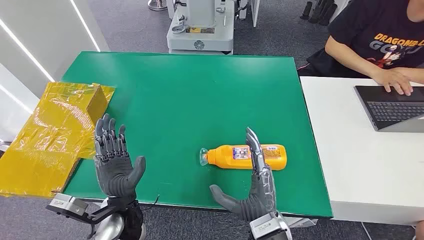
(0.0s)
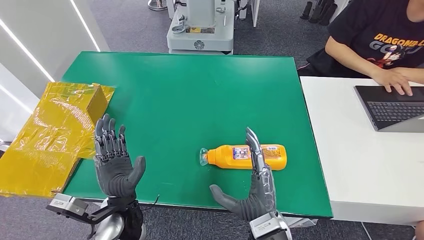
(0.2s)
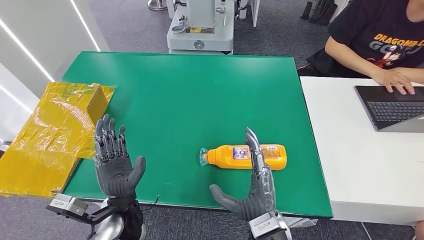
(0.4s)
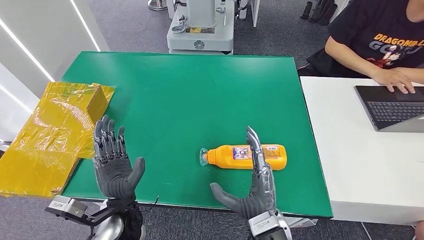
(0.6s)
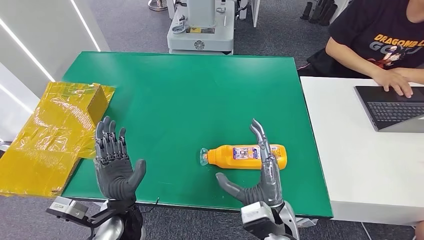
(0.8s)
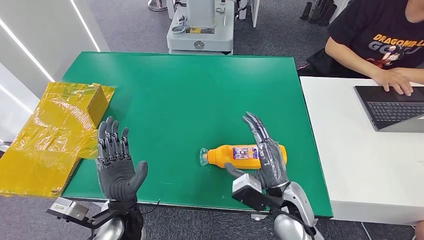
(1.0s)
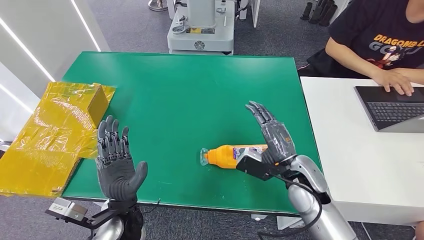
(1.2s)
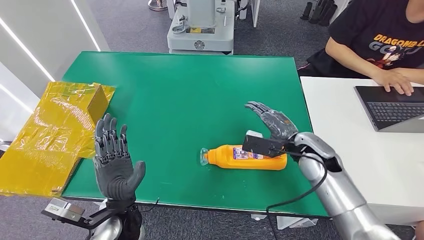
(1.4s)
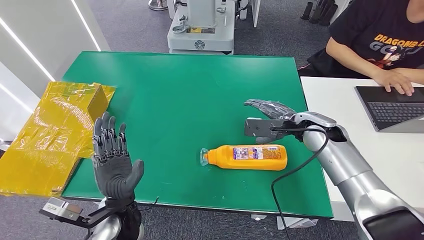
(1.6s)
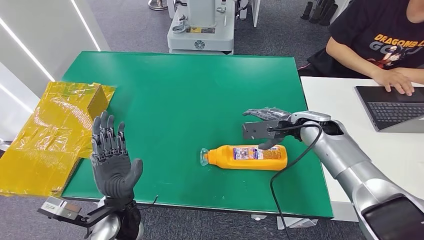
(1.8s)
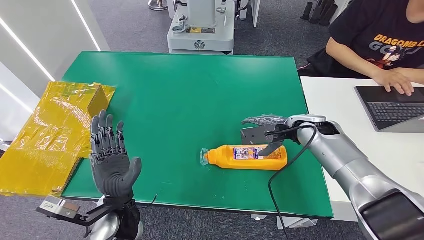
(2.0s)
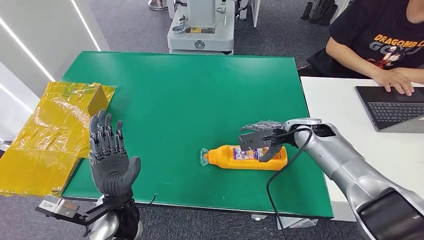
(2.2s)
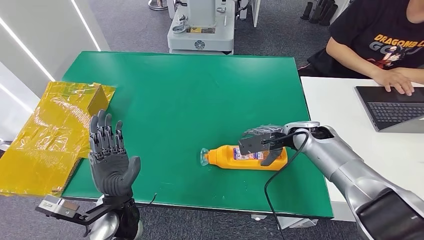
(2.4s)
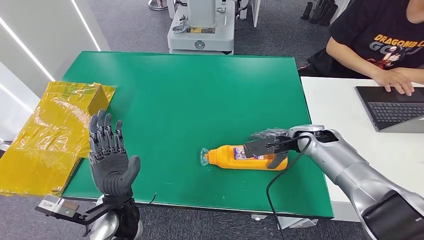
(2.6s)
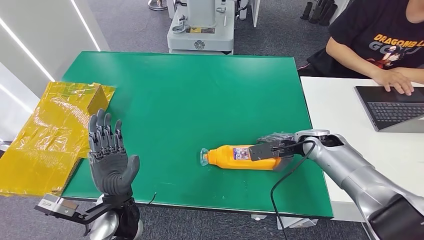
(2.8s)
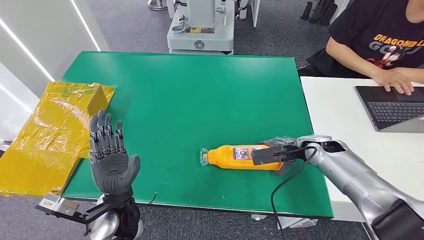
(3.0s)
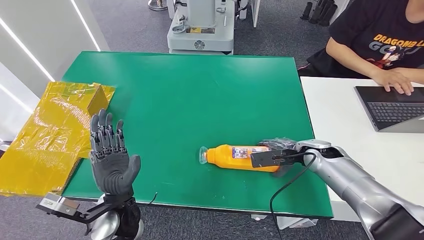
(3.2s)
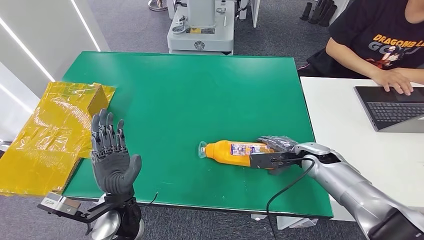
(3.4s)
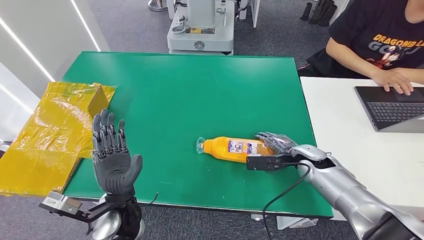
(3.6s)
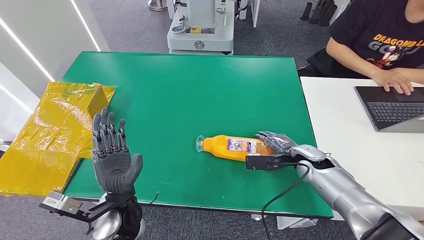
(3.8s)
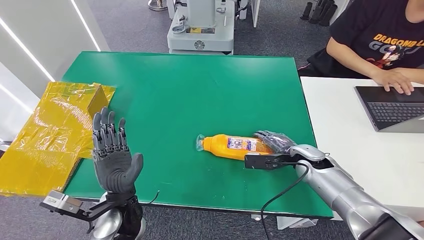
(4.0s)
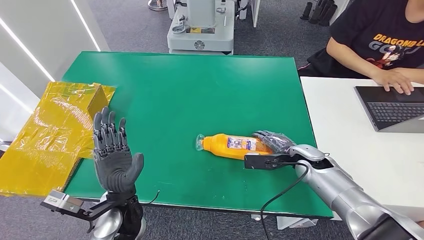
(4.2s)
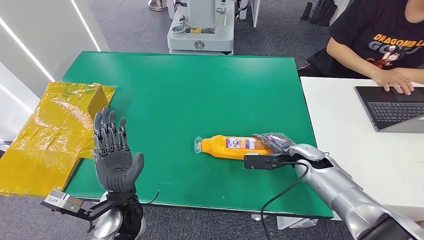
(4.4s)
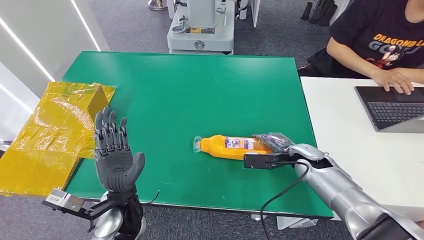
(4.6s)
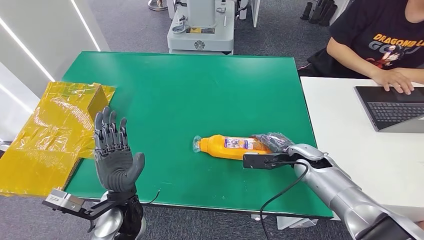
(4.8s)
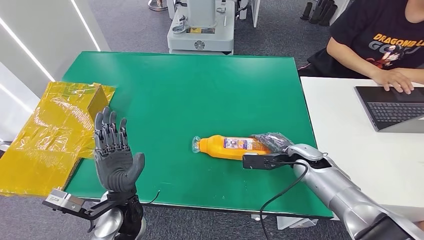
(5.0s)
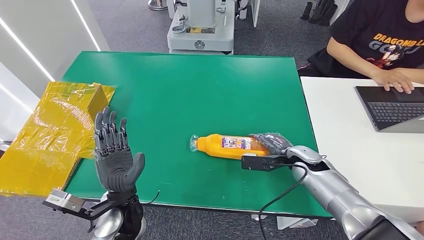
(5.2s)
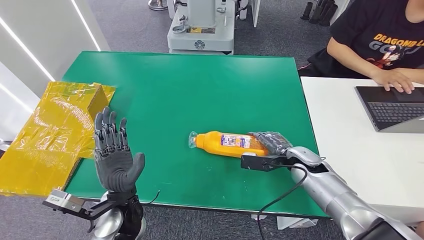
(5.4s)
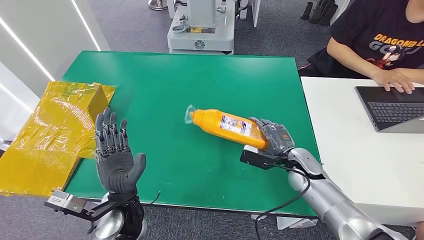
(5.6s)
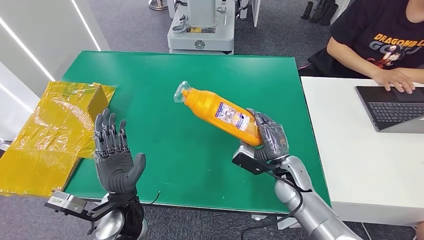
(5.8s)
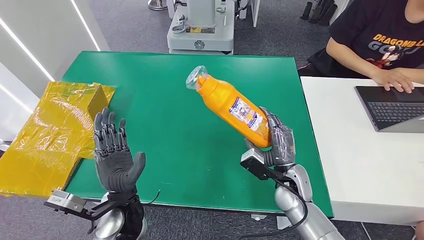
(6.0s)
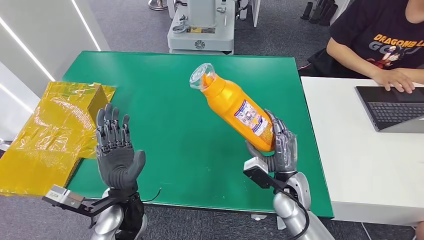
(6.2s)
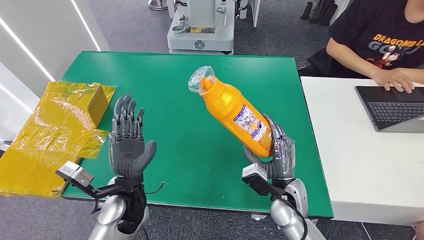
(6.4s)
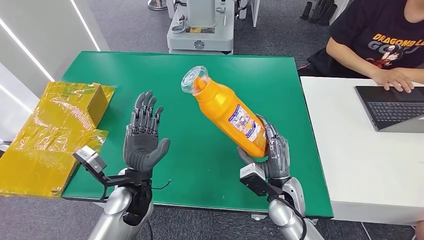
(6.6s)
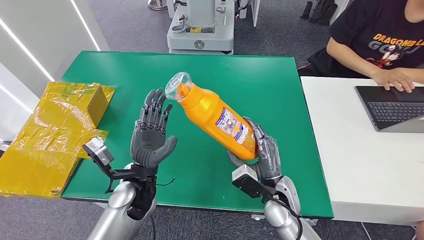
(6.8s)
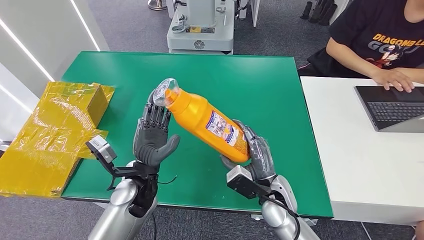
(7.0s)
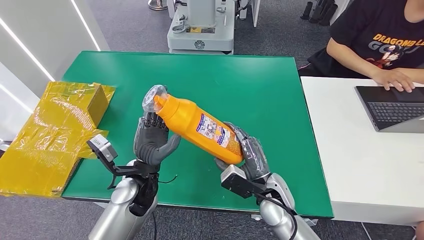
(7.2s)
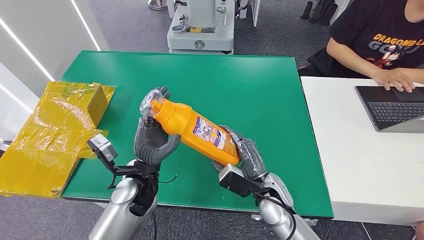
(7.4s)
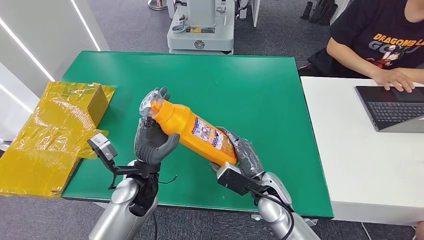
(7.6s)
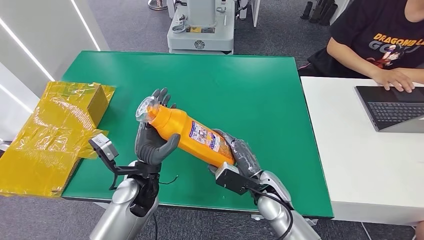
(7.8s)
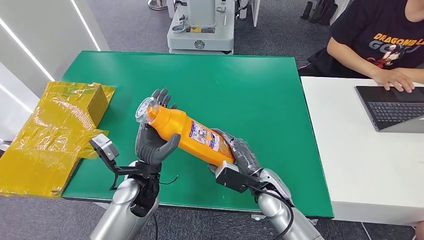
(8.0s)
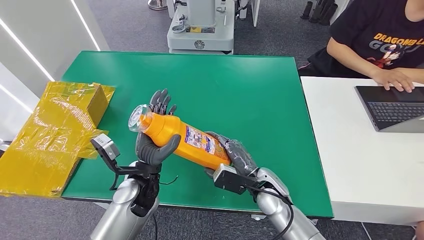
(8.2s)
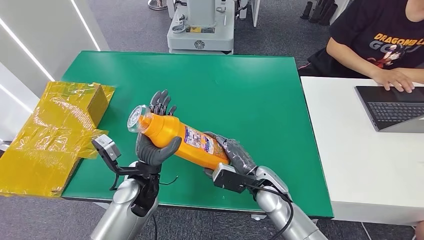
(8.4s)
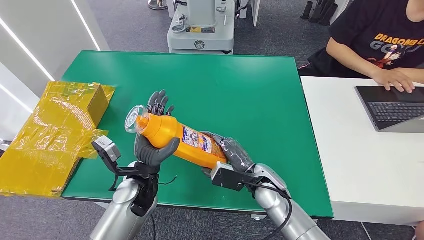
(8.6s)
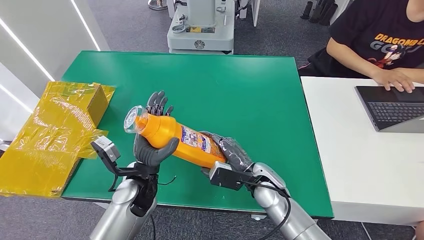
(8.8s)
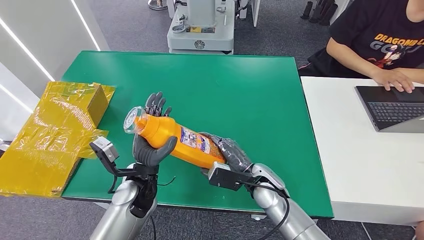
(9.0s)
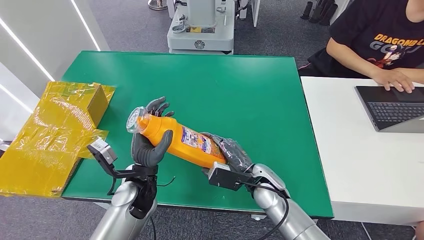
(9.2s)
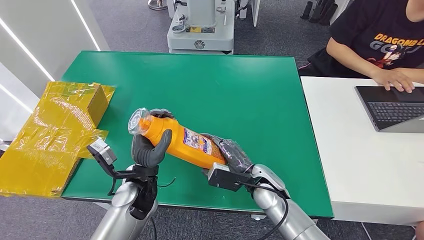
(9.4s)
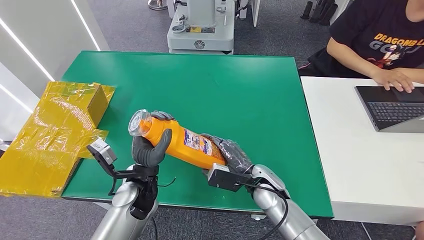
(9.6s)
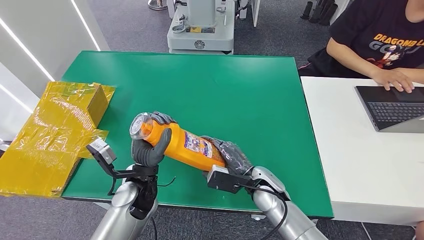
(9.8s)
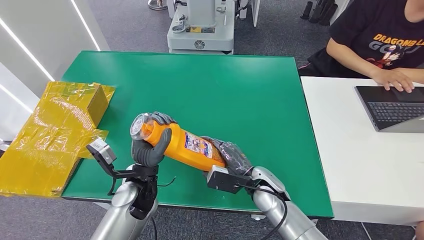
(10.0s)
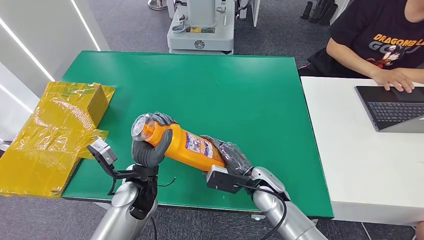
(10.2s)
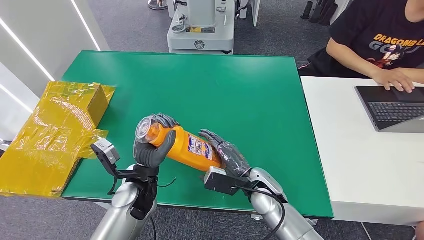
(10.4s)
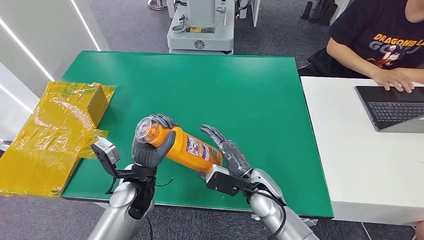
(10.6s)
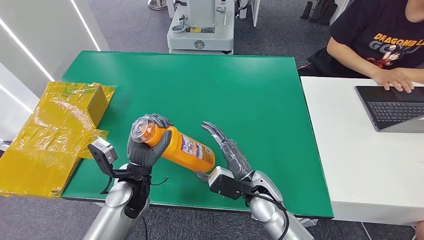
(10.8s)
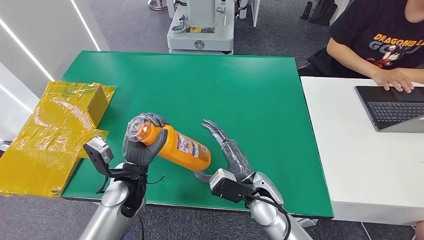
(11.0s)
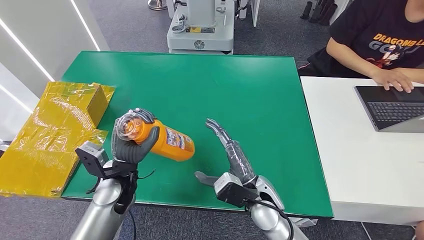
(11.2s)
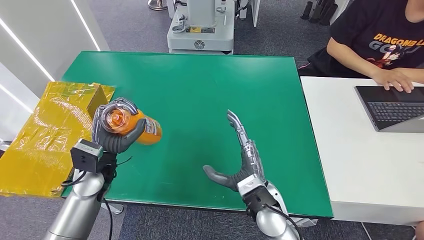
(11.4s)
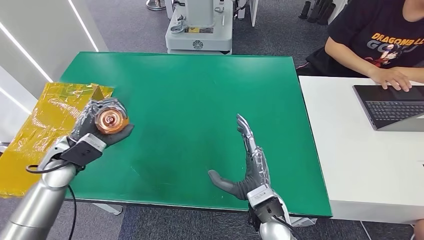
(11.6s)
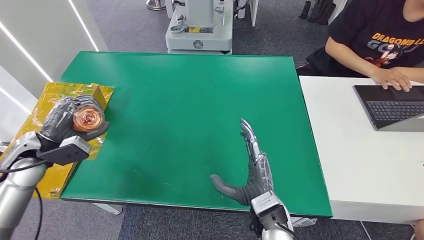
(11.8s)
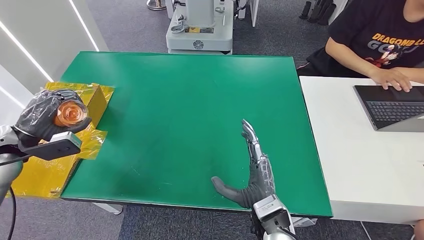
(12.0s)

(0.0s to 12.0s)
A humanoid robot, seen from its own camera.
Step, 0.0s - 6.6s: Pick up the bottle from the table.
1.6s - 3.0s: The right hand moves downward and to the right, about 10 cm.
3.0s - 4.4s: The right hand changes place by about 5 cm.
4.4s - 6.0s: The right hand shifts some 10 cm to the left and backward.
6.0s - 7.6s: The right hand goes approximately 5 cm to the left; the left hand is displaced forward by approximately 5 cm.
7.6s - 9.0s: There are only small adjustments of the hands.
9.0s - 10.4s: Neither hand changes place.
10.4s - 12.0s: The left hand shifts some 30 cm to the left. The right hand heads backward, covering approximately 10 cm.

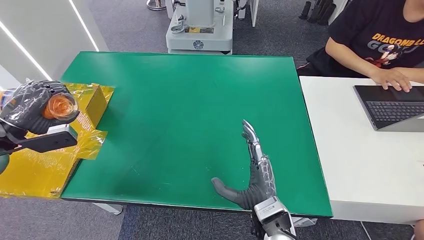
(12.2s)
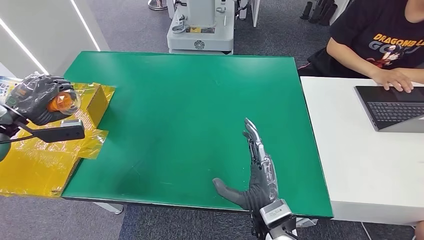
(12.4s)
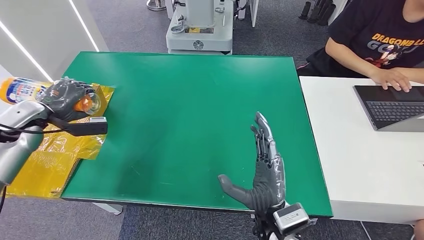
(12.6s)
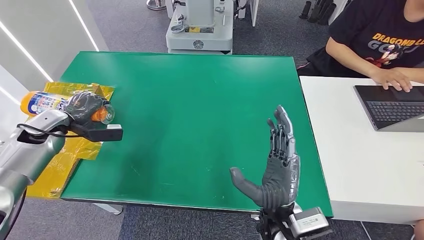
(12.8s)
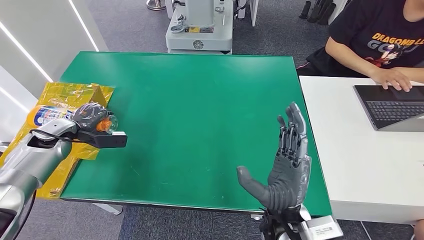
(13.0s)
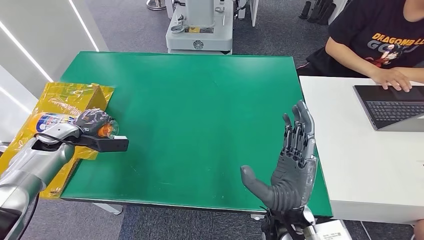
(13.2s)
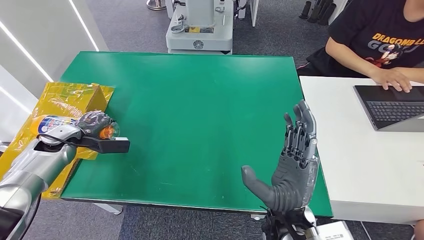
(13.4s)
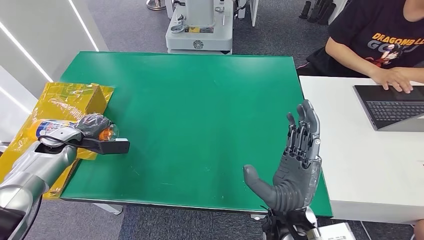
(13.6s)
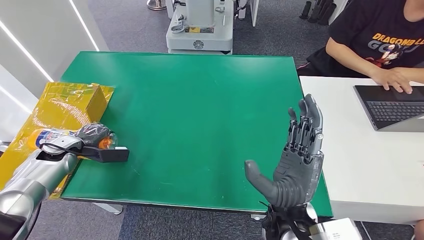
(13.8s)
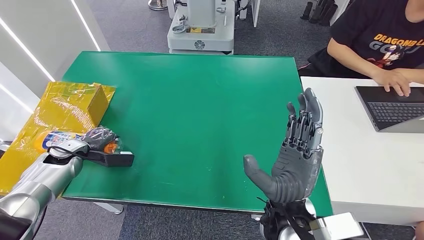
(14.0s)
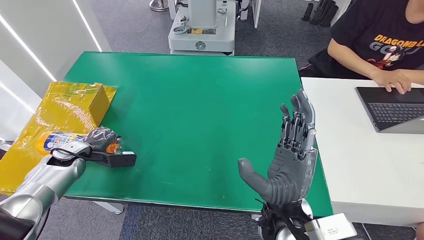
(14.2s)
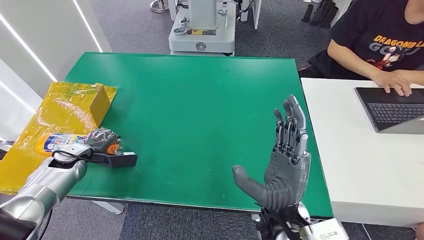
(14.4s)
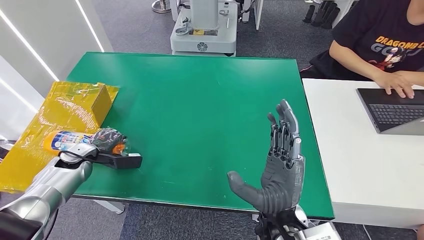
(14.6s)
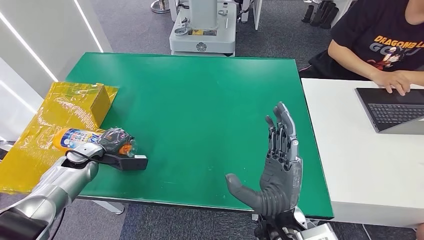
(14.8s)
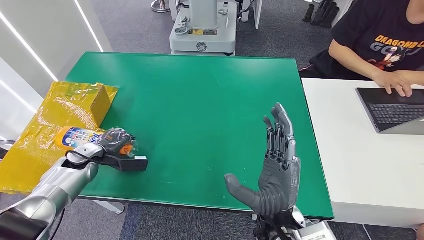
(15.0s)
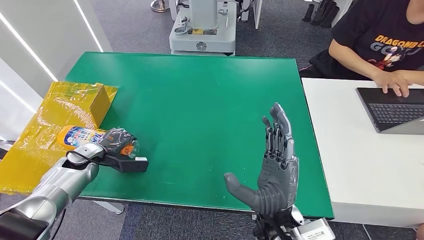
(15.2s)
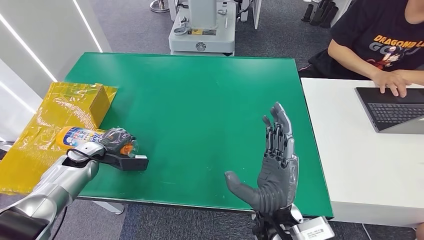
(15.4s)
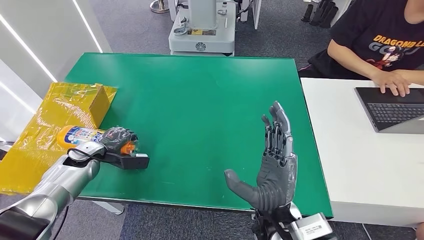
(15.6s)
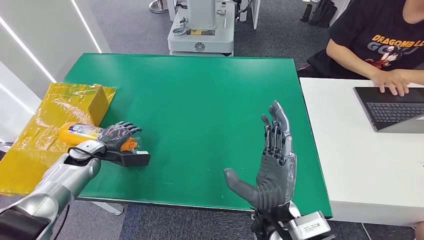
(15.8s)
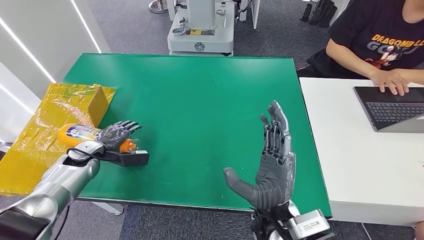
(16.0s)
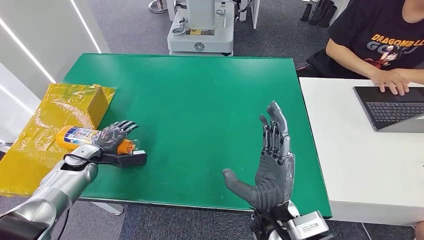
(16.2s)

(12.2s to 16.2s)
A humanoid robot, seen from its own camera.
Step, 12.2s - 16.2s: Turn the bottle to the front side.
12.2s - 13.6s: The left hand travels downward and forward by about 15 cm; the right hand is displaced upward by about 5 cm.
14.8s - 16.2s: There are only small adjustments of the hands.
